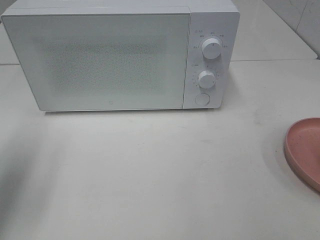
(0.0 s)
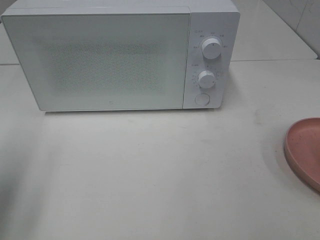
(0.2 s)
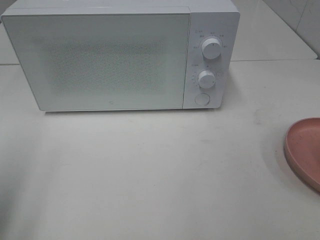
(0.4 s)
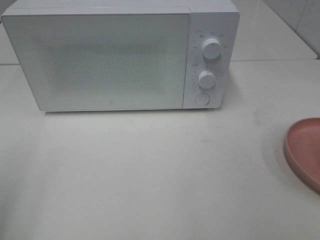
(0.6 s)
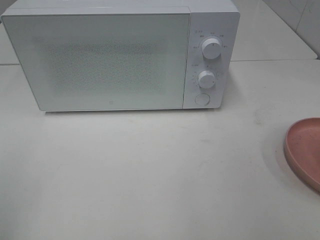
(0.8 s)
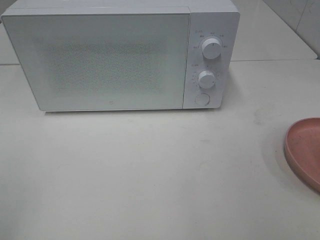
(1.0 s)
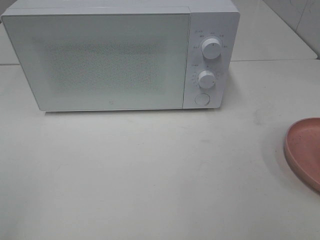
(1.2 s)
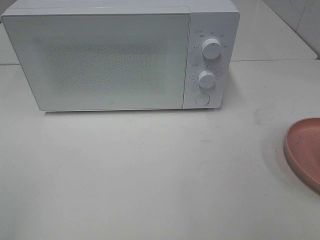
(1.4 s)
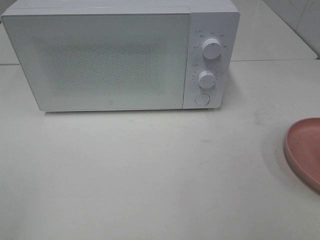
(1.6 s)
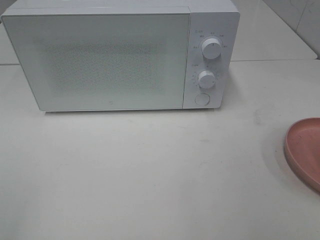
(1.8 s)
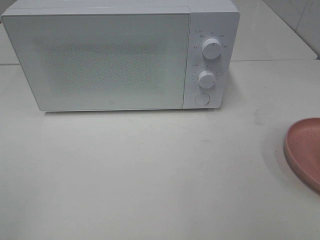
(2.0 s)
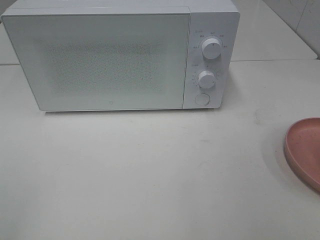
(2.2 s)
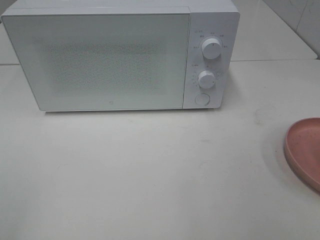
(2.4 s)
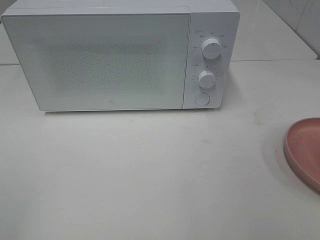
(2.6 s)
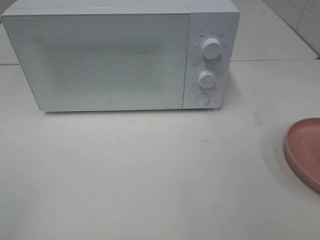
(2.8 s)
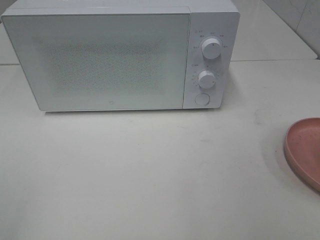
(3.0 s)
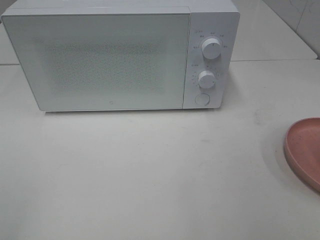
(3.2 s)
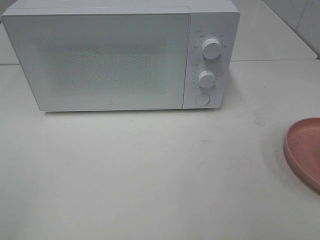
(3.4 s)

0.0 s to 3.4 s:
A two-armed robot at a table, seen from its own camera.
Task of the whole recording: Heat the burger.
0.0 to 1.6 s: The left gripper heads backward, covering roughly 20 cm.
1.6 to 3.4 s: The two grippers keep their place.

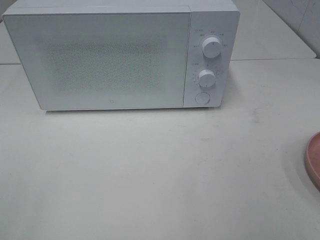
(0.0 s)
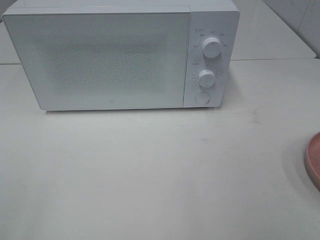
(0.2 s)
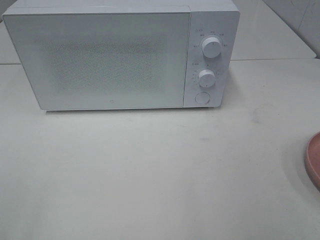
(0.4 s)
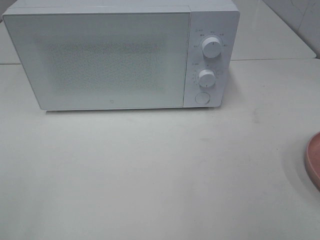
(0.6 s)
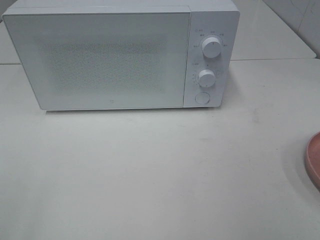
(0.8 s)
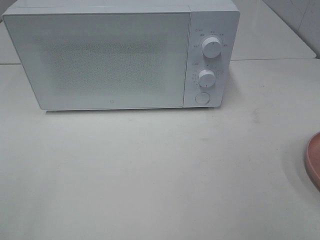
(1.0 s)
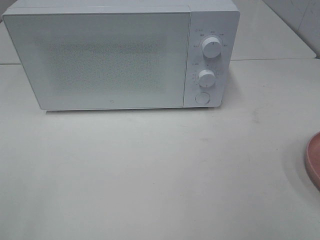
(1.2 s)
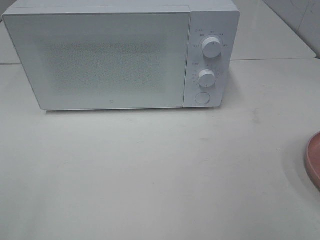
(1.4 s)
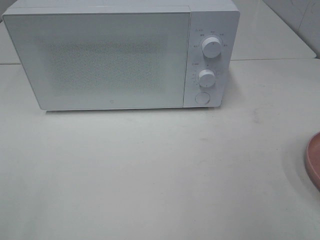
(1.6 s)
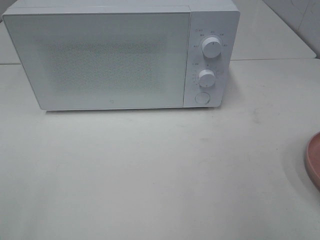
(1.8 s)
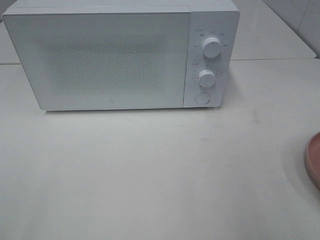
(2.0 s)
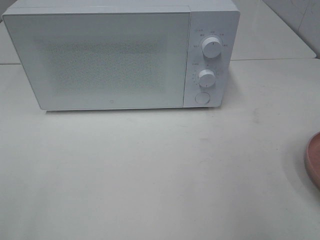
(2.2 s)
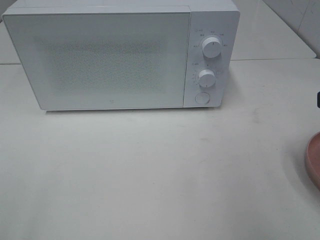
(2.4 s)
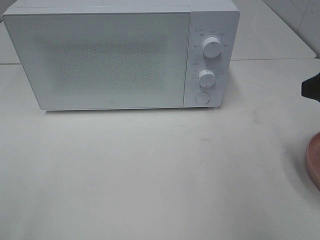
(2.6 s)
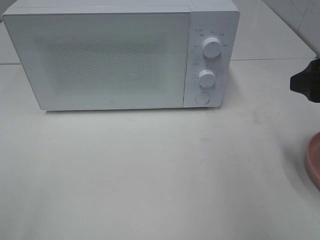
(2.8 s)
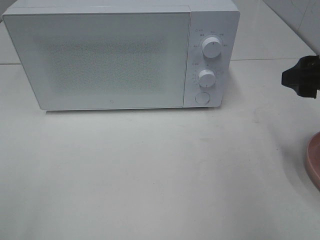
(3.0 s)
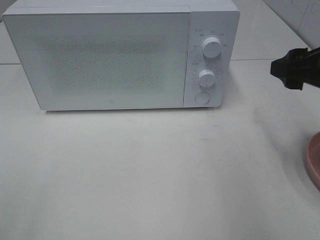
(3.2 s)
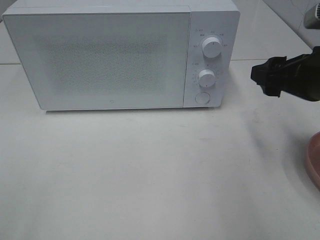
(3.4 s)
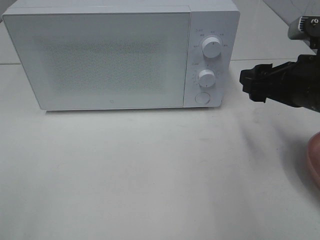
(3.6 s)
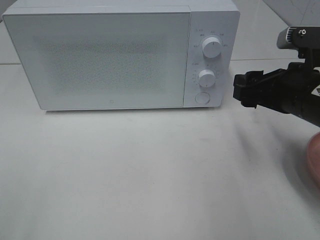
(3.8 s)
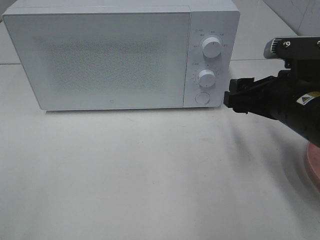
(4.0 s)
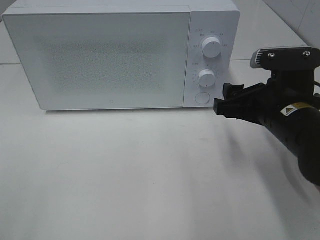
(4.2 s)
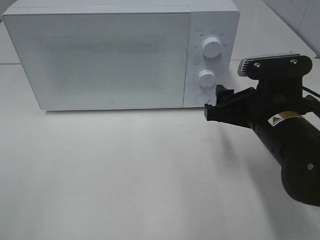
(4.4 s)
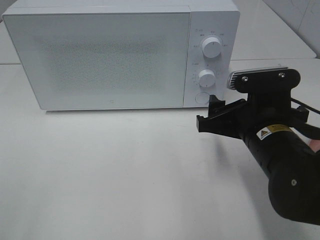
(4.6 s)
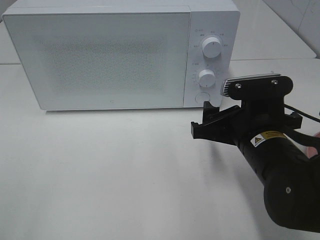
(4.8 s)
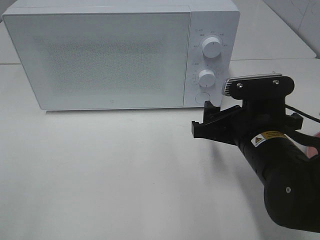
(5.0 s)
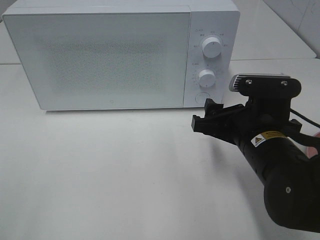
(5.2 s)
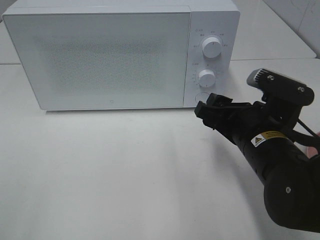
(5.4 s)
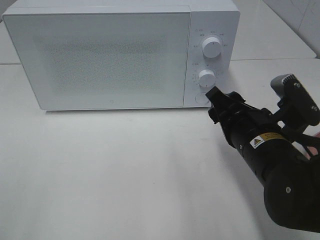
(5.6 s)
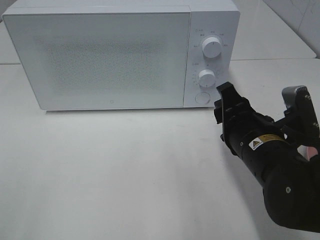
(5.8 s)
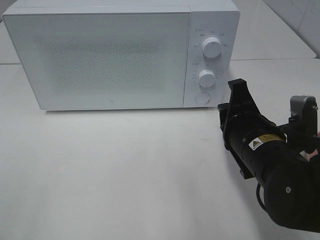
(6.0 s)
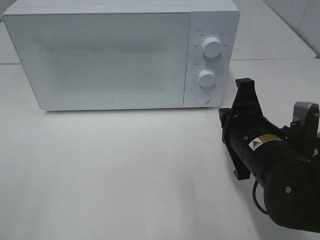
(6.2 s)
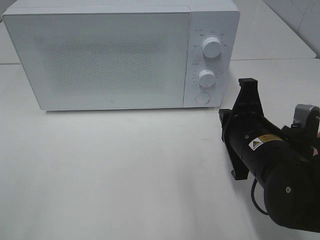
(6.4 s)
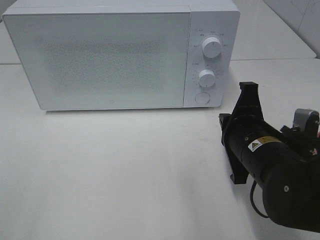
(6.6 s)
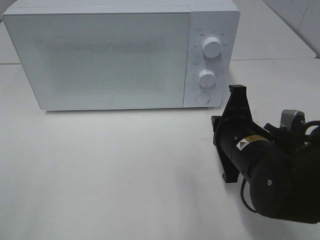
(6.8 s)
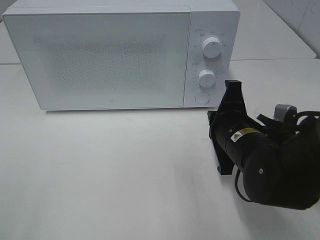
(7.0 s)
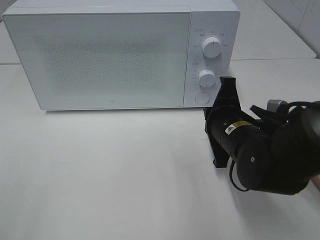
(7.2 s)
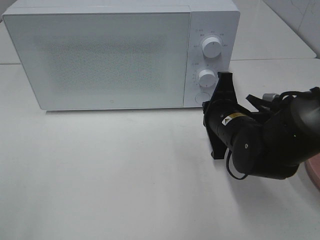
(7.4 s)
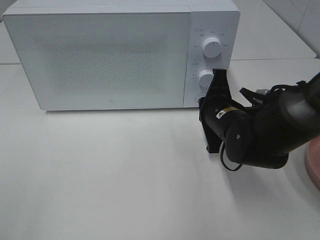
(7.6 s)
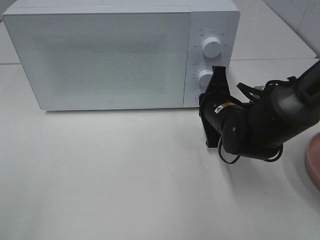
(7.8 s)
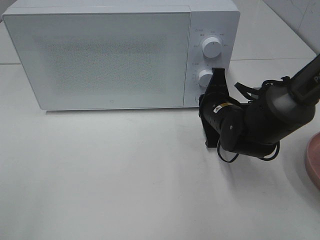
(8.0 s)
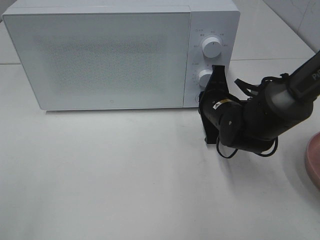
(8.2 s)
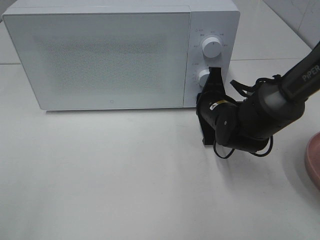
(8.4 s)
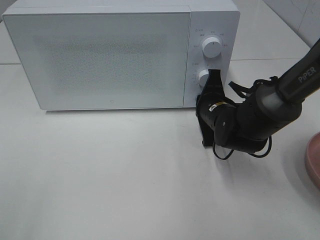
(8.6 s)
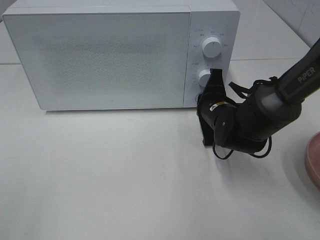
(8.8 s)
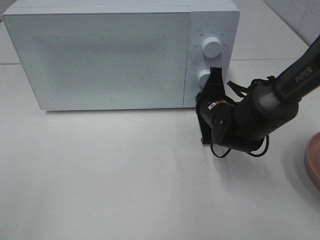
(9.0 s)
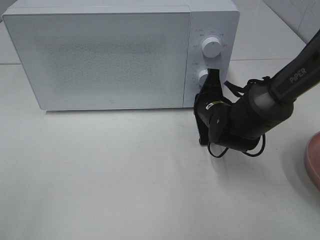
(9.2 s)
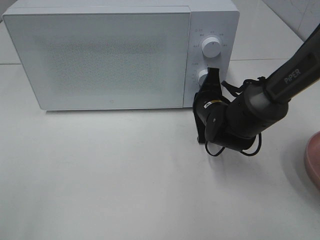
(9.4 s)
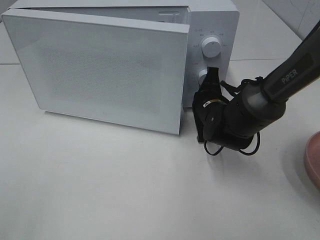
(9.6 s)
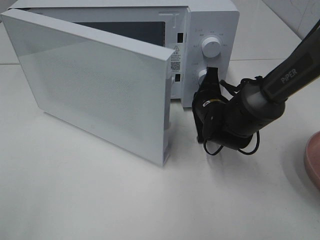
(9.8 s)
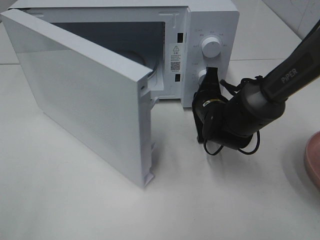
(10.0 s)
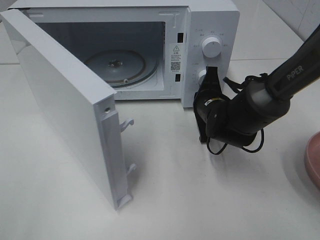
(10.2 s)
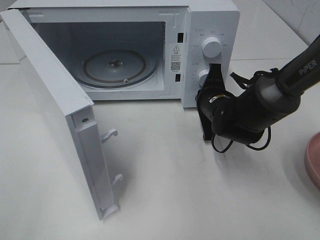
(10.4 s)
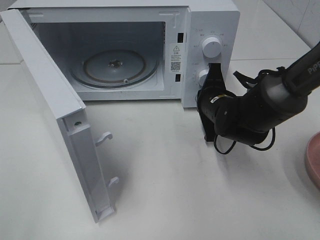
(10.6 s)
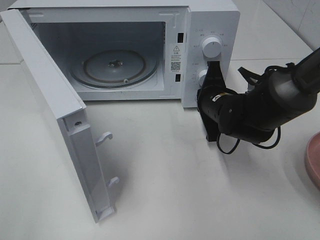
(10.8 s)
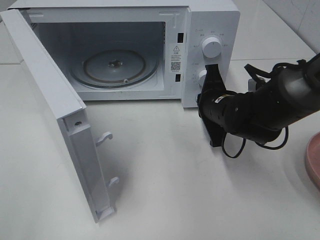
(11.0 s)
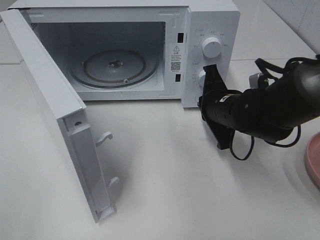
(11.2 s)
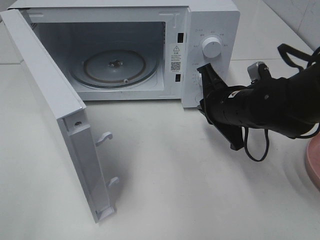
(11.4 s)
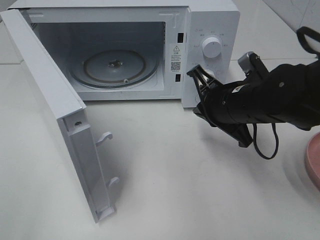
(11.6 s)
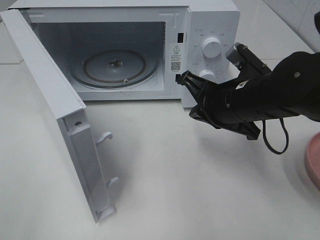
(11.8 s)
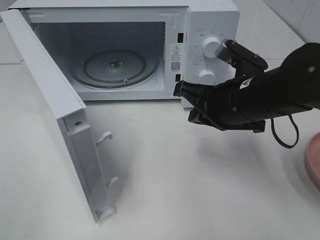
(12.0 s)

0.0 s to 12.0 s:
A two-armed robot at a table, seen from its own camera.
Task of the whole recording: Heat the burger.
Step, 0.0 to 10.8 s: Right hand: press the switch.
1.6 to 3.0 s: The right gripper is displaced forward by about 15 cm.
3.0 to 4.4 s: The right gripper is displaced to the left and downward by about 15 cm.
4.4 to 6.0 s: The right gripper closes its fingers.
6.0 to 7.6 s: The right gripper goes about 10 cm forward.
7.6 to 9.0 s: The right gripper shifts by approximately 5 cm.
10.4 to 12.0 s: The right gripper is displaced backward and upward by roughly 15 cm.

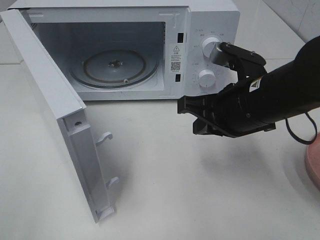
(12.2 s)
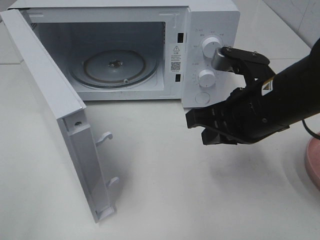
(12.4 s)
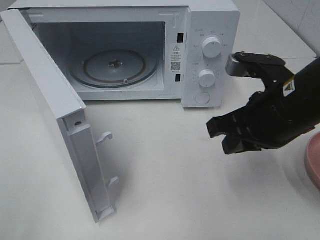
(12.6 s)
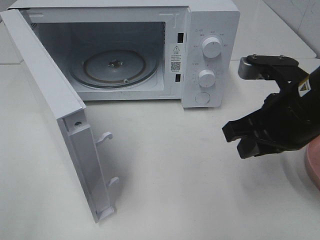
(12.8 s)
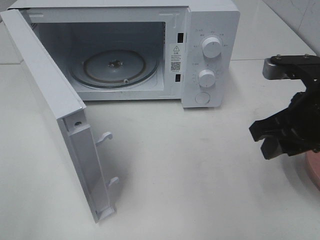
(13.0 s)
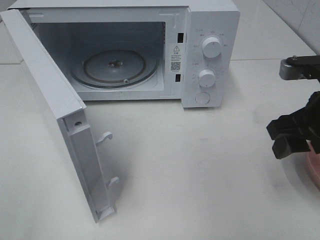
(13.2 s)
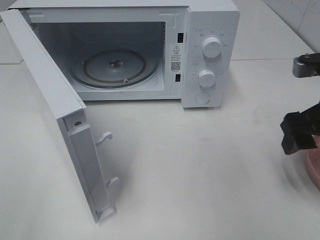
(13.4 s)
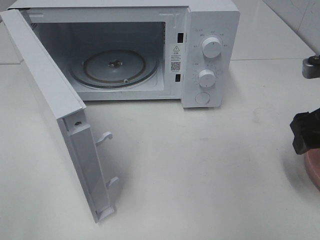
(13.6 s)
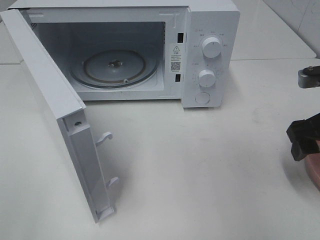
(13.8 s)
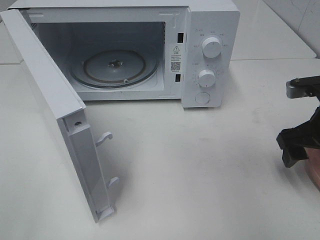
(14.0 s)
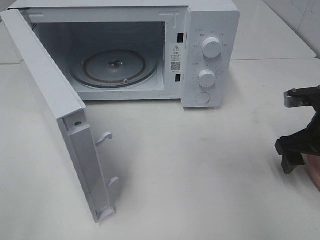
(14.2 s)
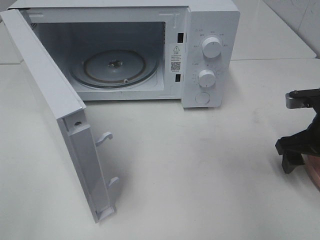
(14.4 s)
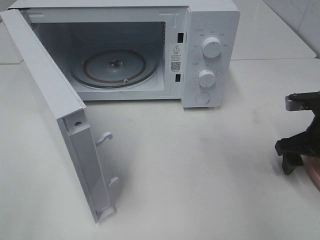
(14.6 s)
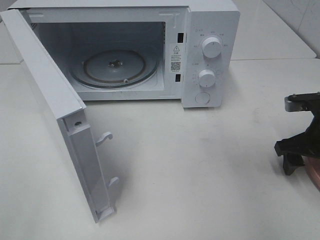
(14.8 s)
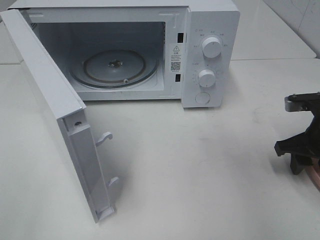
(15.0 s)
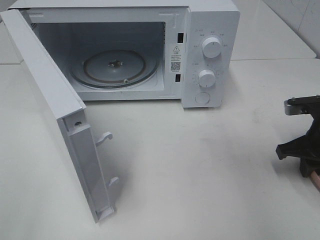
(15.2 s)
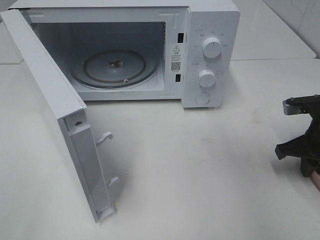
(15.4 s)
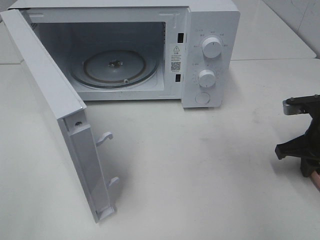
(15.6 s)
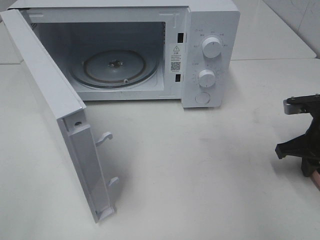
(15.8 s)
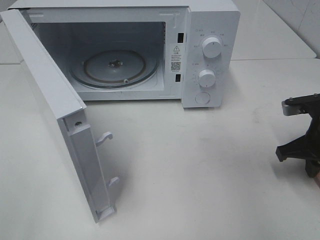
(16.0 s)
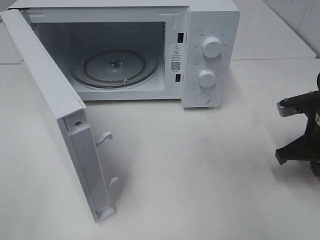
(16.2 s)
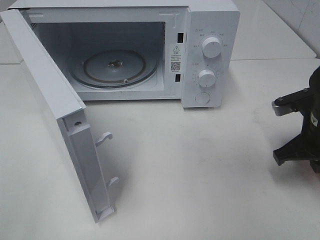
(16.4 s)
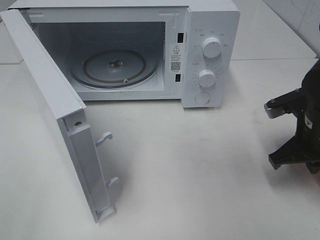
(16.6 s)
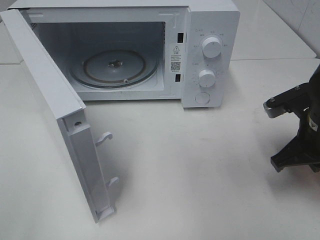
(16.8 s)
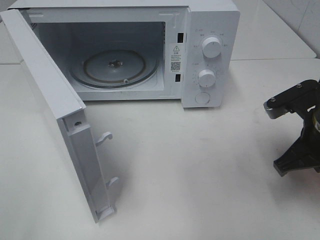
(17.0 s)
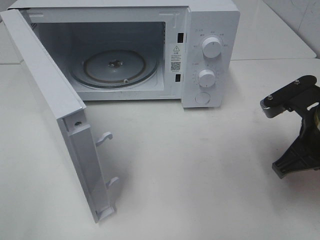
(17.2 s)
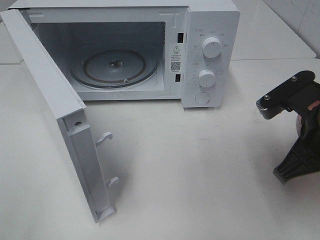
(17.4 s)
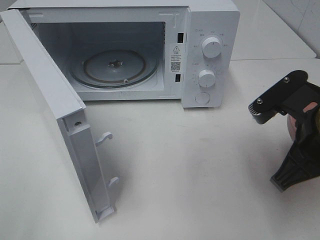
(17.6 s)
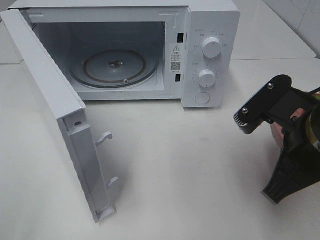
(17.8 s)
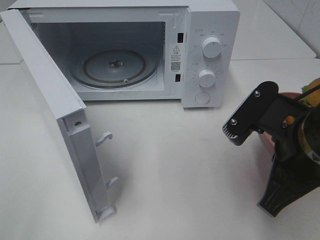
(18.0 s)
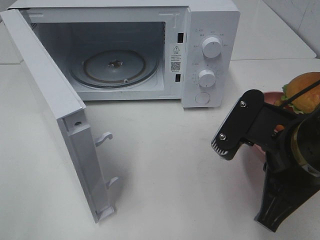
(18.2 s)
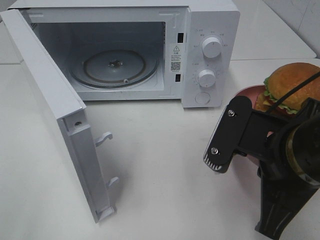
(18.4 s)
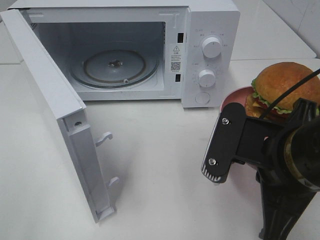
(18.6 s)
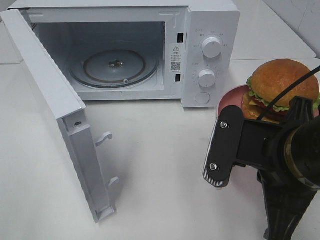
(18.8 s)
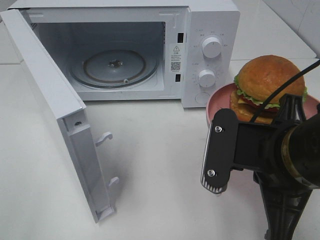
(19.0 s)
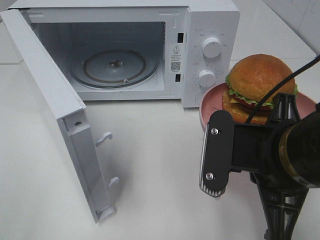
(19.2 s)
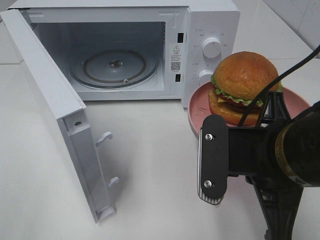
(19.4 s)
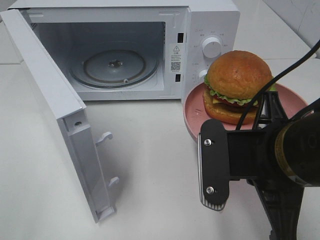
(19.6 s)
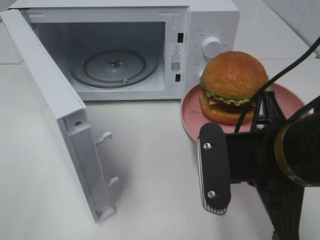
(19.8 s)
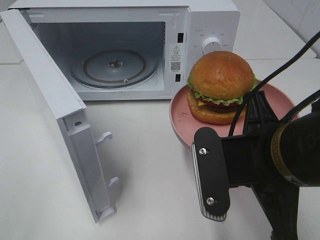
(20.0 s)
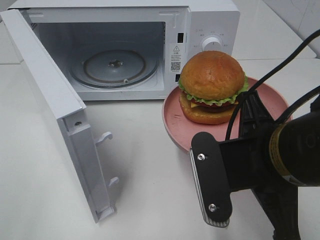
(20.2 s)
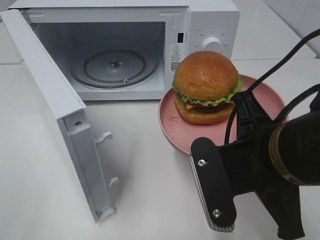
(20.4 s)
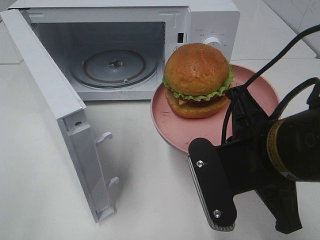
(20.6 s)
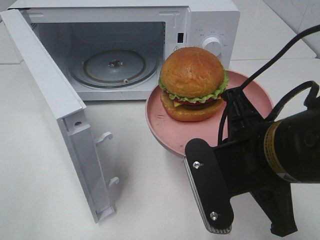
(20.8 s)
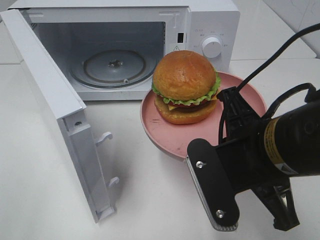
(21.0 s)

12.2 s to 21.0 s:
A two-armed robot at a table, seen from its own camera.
Task of the whole recording: Heat the burger.
Step, 12.2 to 16.2 s: Right hand: grab the plate with the hamburger.
12.2 to 13.6 s: The right gripper goes some 15 cm to the right, and opens its fingers.
13.6 to 15.2 s: The right gripper goes roughly 10 cm downward, and closes.
15.2 to 16.6 s: The right gripper shifts by some 5 cm.
16.6 to 18.0 s: The right gripper shifts about 15 cm backward, to the left and upward.
